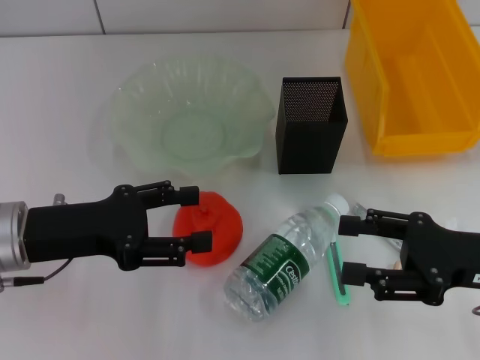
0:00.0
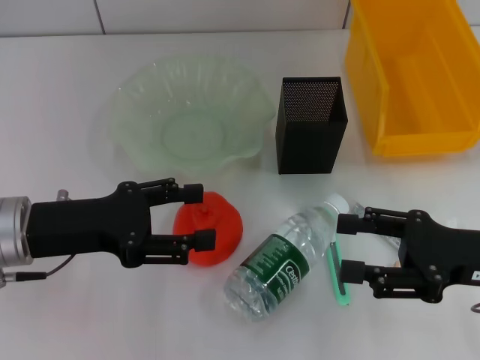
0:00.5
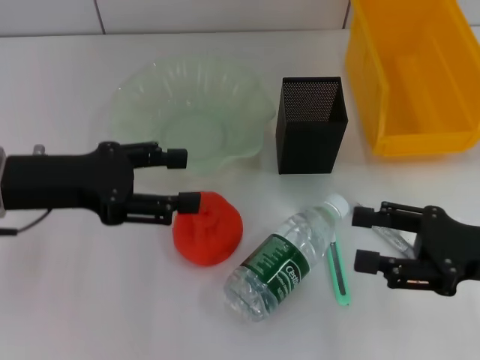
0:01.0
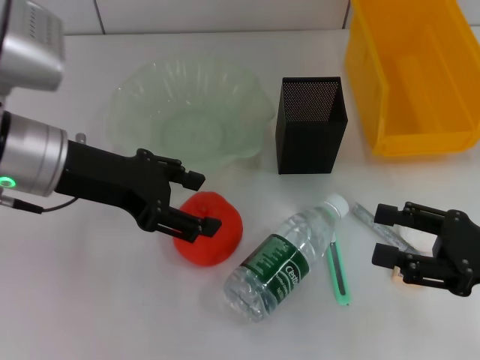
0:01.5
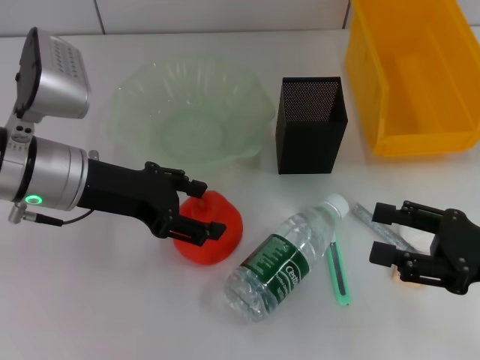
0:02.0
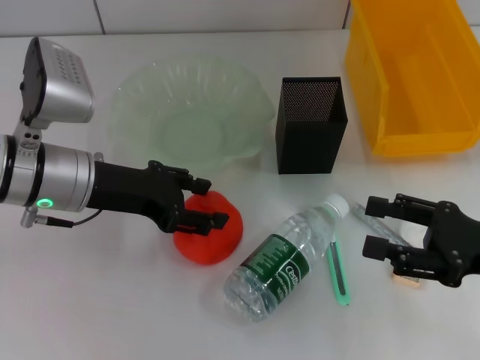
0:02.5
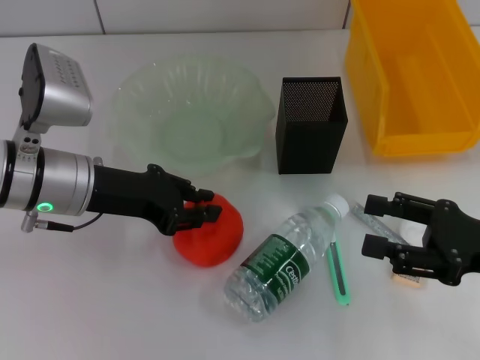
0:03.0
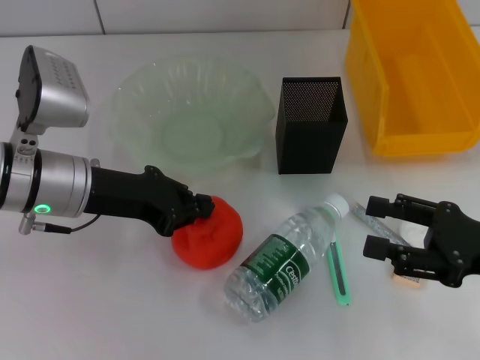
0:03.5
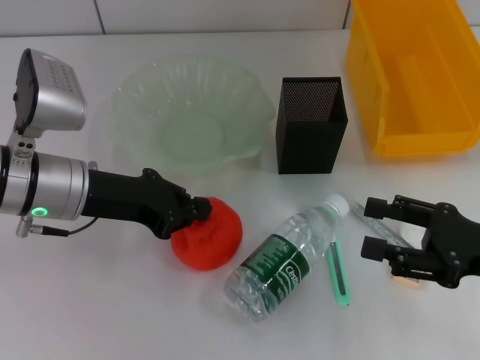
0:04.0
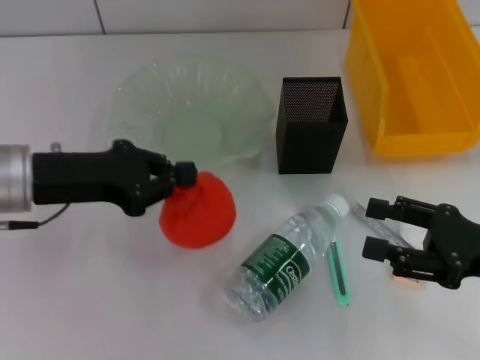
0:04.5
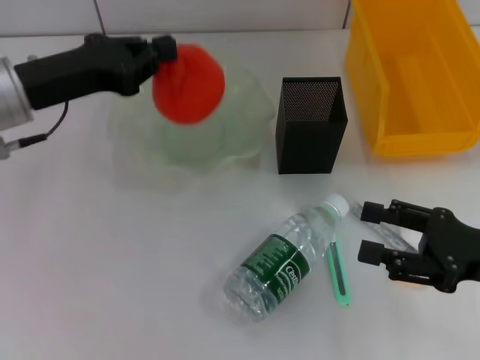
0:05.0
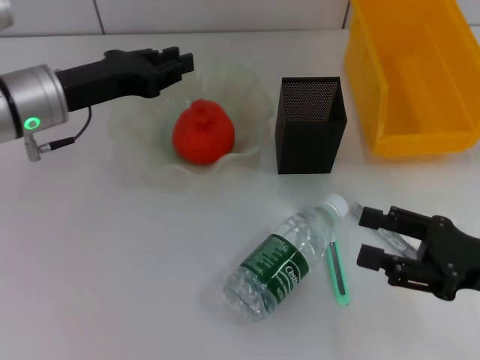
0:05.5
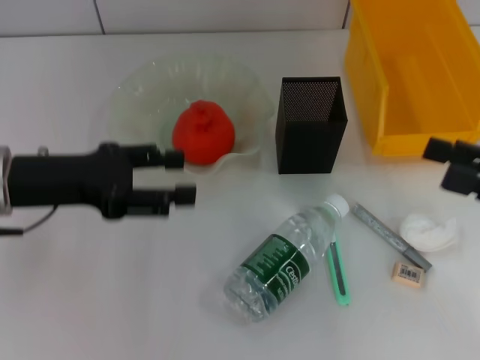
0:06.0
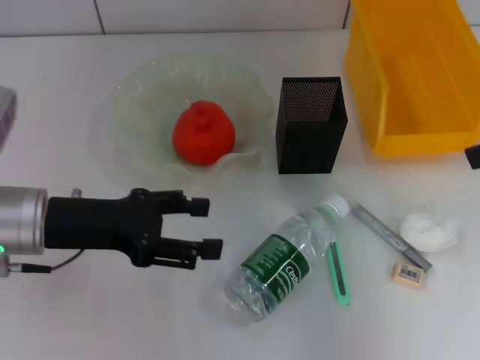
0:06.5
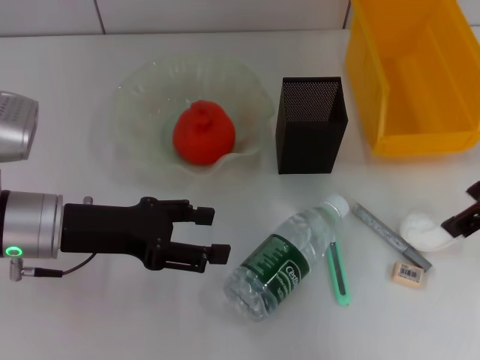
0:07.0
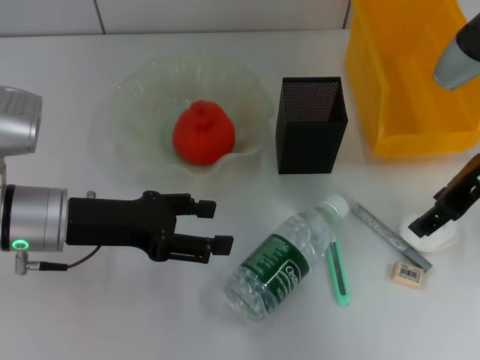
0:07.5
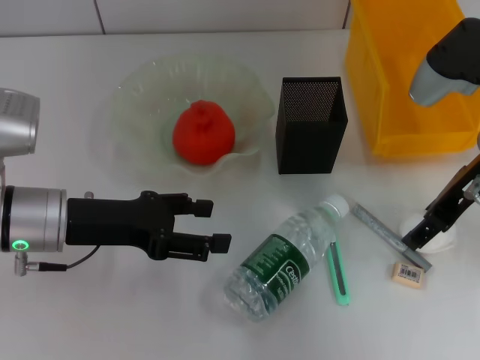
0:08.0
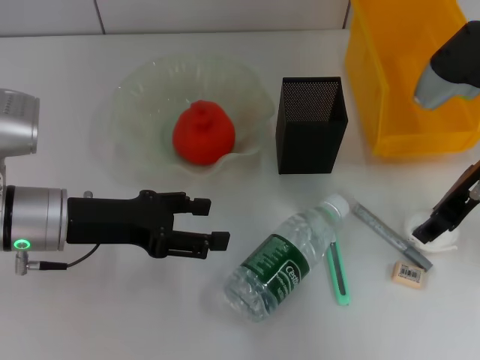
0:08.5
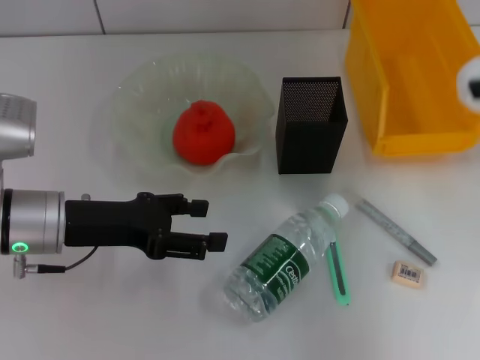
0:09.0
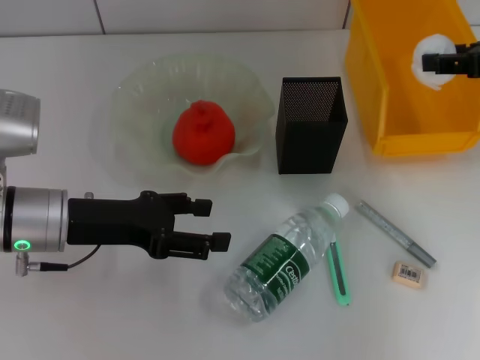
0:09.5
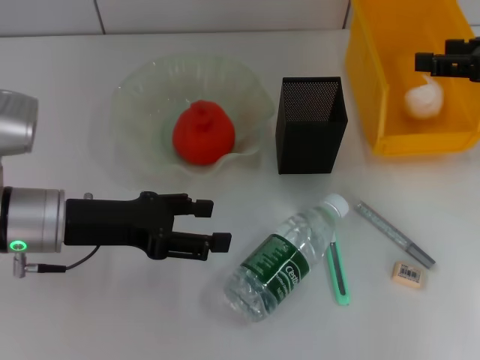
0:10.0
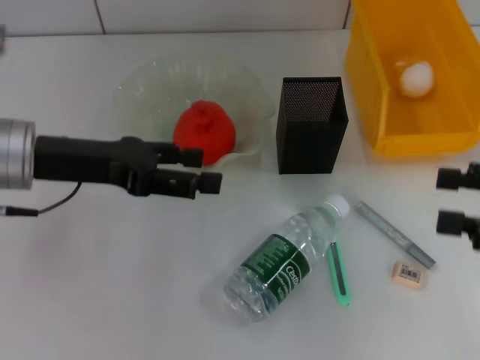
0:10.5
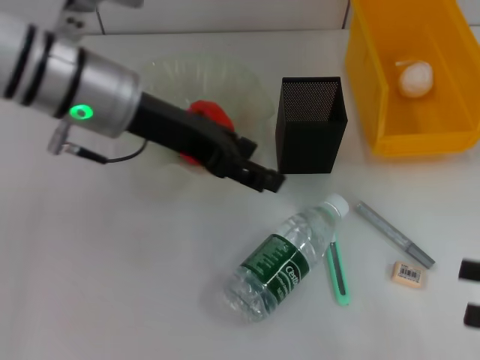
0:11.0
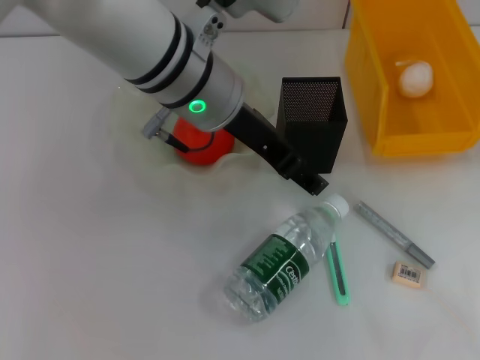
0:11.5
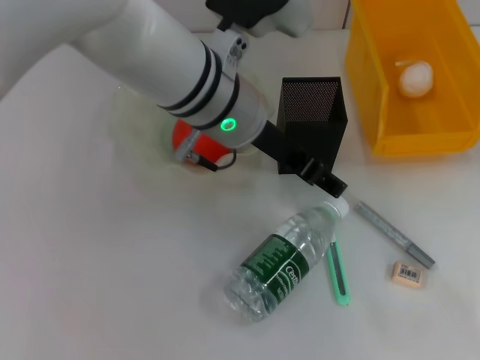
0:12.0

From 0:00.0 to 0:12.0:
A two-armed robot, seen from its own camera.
Step, from 0:00.0 to 0:04.0: Grab the orange with the left hand.
Step, from 0:04.5 to 0:05.5: Place the orange into the fruit bowl with the left hand.
Step, from 0:06.0 to 0:08.0: Grab the paper ball with the right hand.
Step, from 0:08.5 to 0:10.0: Place the paper ball into the trash can with the right hand.
From 0:00.0 to 0:02.0: The left gripper goes about 5 cm forward.
From 0:02.0 to 0:04.0: The left gripper closes its fingers.
From 0:04.0 to 0:06.0: The left gripper goes some 5 cm to the left, reaches some 5 cm forward, then returns, and opens, while the right gripper is displaced upward by some 5 cm.
From 0:06.0 to 0:08.0: The right gripper moves forward and to the left, about 15 cm, and travels upward and back again, roughly 15 cm each way, while the left gripper shifts by approximately 5 cm, and opens up.
From 0:08.0 to 0:10.0: The right gripper travels to the right by roughly 10 cm.
From 0:10.0 to 0:12.0: The right gripper is displaced backward, downward and to the right by approximately 20 cm. The left gripper travels to the right and upward by about 20 cm.

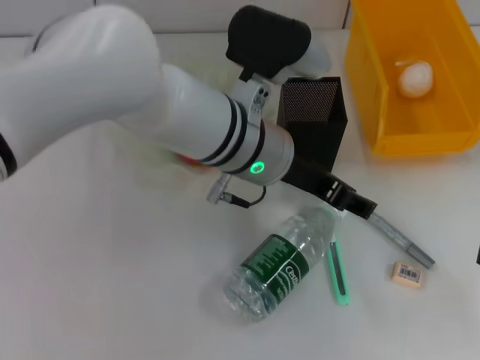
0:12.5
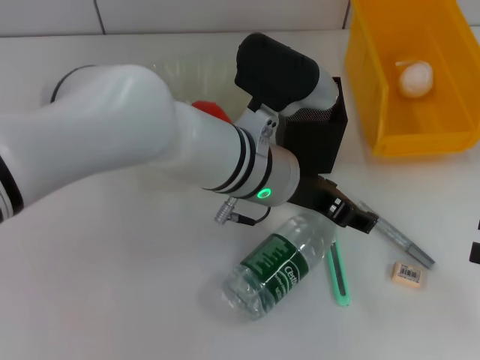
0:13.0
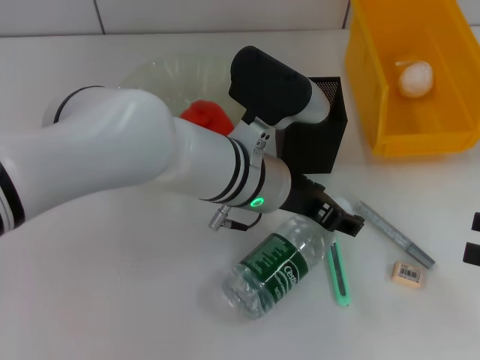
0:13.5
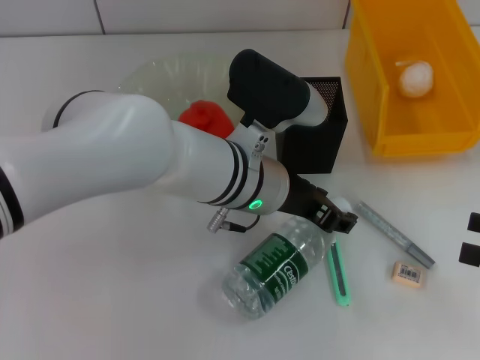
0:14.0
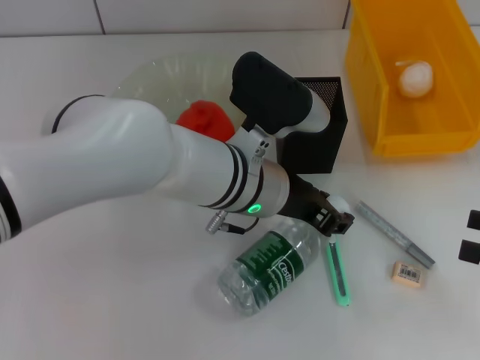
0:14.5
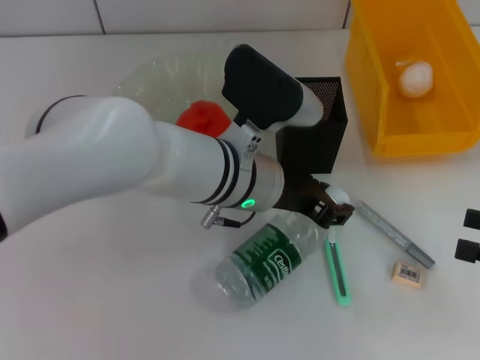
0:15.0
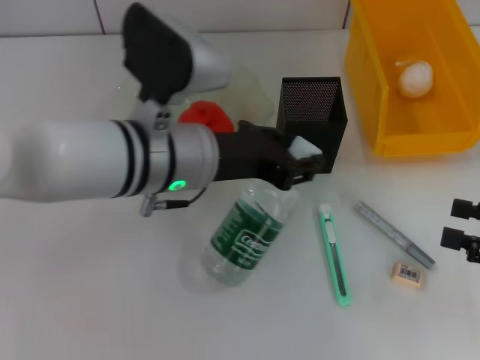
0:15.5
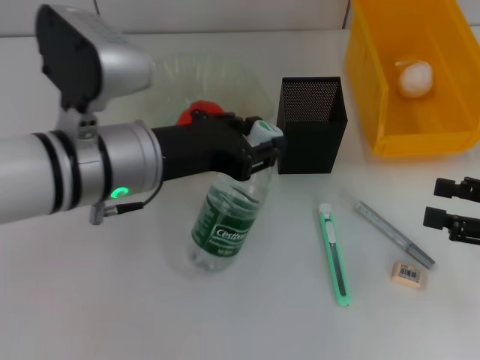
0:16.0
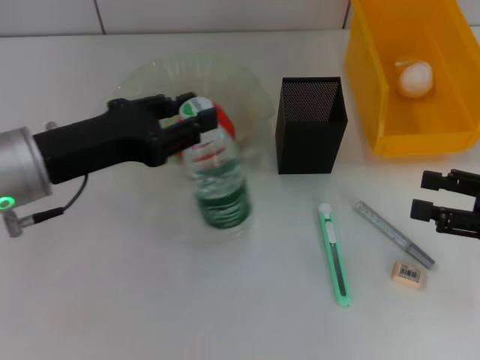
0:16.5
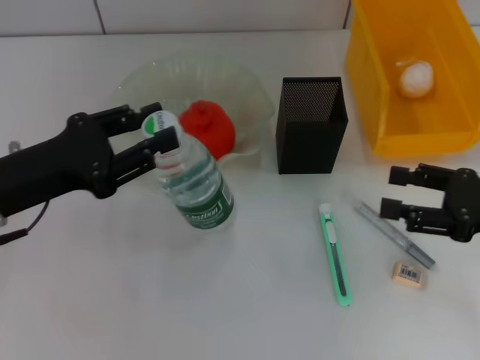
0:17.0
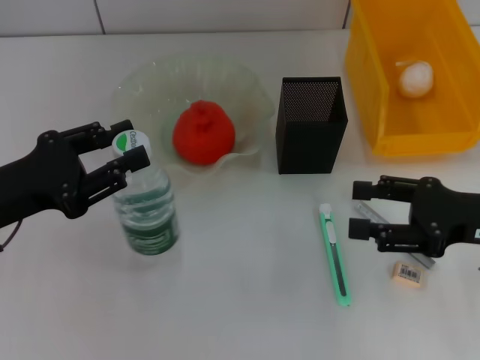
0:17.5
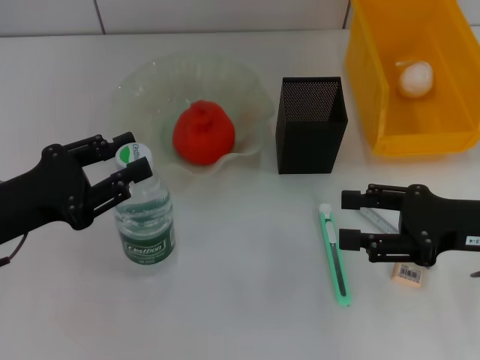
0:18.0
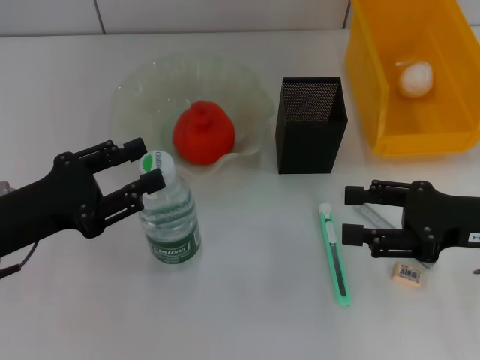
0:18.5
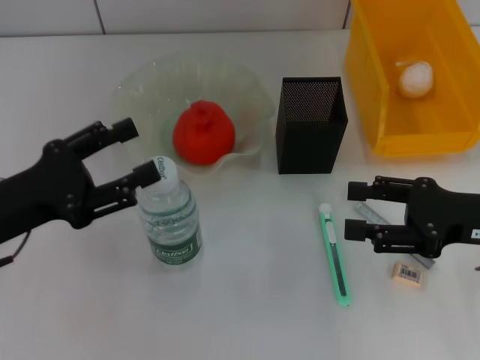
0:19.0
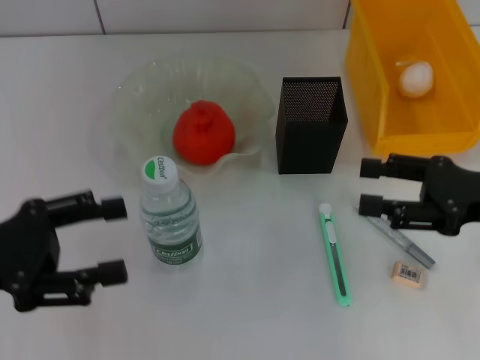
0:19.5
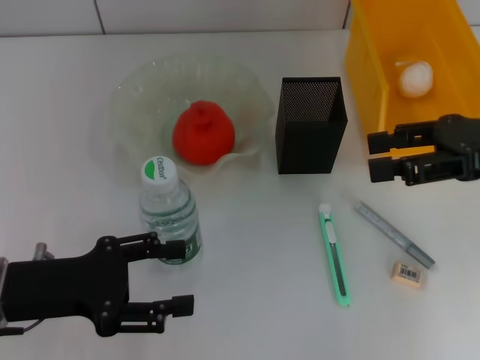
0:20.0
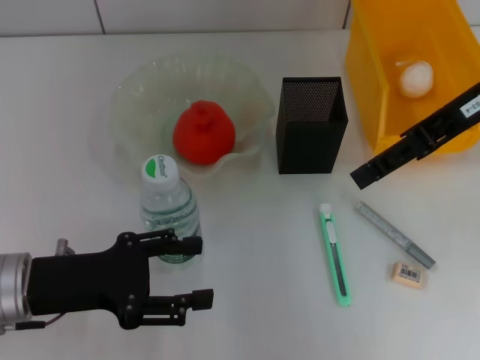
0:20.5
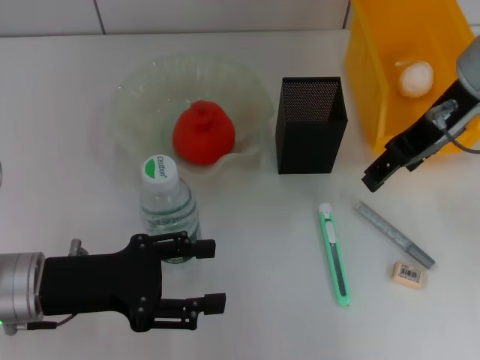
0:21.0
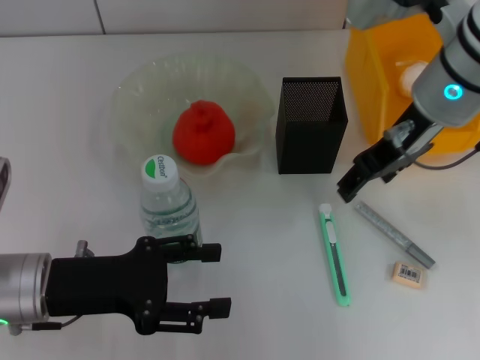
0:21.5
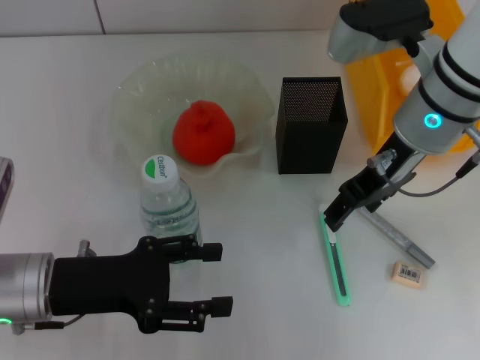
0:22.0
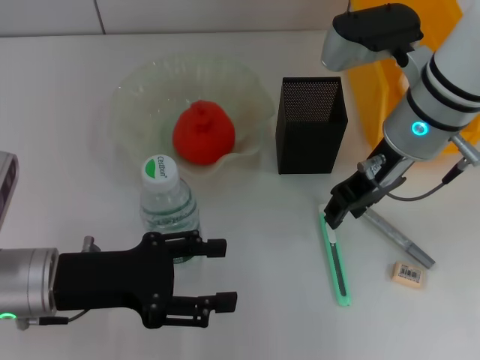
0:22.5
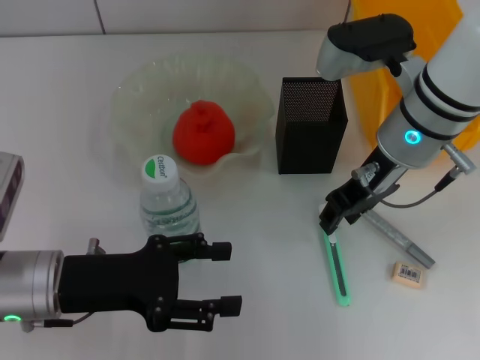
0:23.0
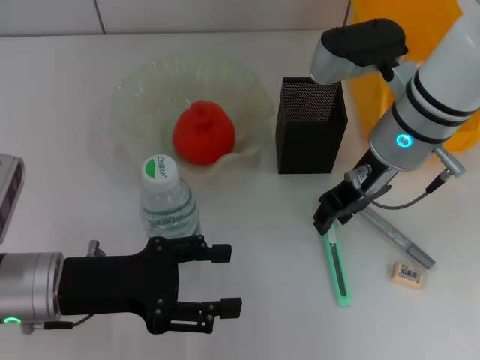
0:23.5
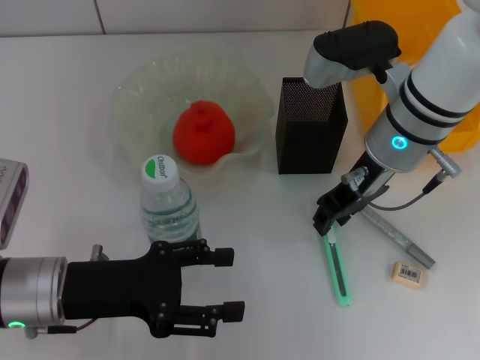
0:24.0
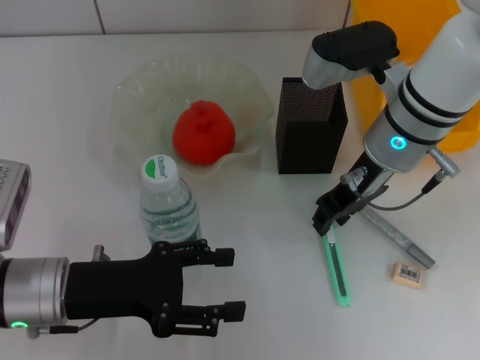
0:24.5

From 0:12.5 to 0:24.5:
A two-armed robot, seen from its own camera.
Step, from 0:12.5 to 0:14.5: Grab the water bottle with the left hand.
Step, from 0:15.0 to 0:18.5: Place the water bottle on the table with the left hand.
From 0:12.5 to 0:14.5: The left gripper closes up.
From 0:14.5 to 0:16.5: The right gripper changes place by some 5 cm. The left gripper shifts about 20 cm to the left.
From 0:16.5 to 0:18.5: The left gripper moves to the left and downward, about 10 cm. Meanwhile the right gripper goes roughly 5 cm to the left.
From 0:18.5 to 0:20.5: The right gripper goes about 20 cm upward, forward and to the left.
From 0:20.5 to 0:22.5: The right gripper heads downward and to the left, covering some 10 cm.
From 0:22.5 to 0:24.5: The grippers move only a little.

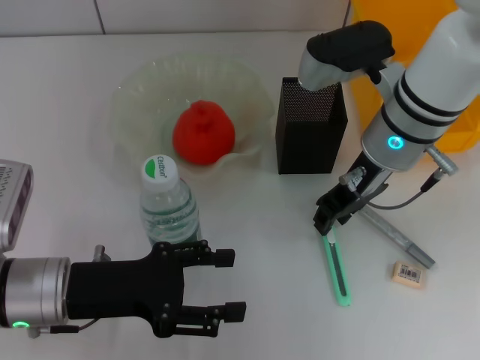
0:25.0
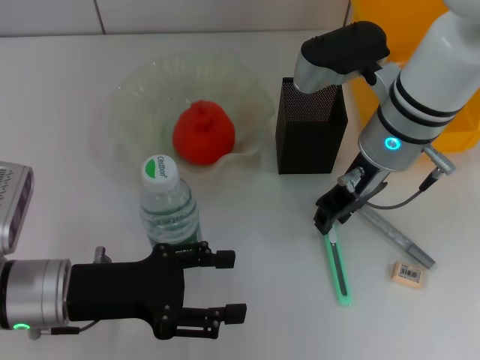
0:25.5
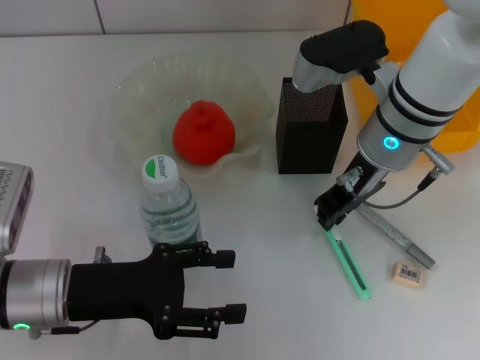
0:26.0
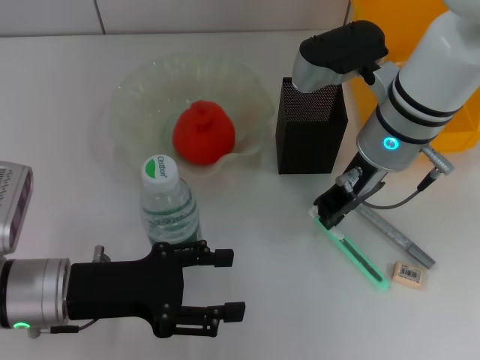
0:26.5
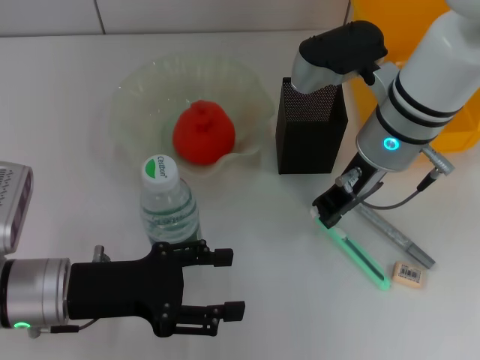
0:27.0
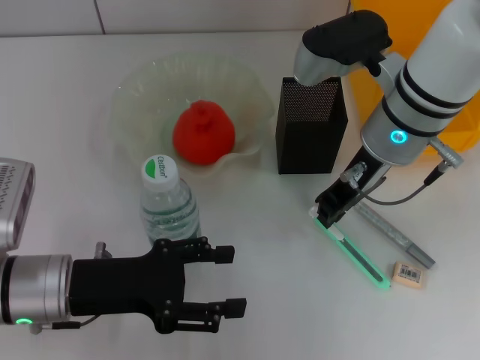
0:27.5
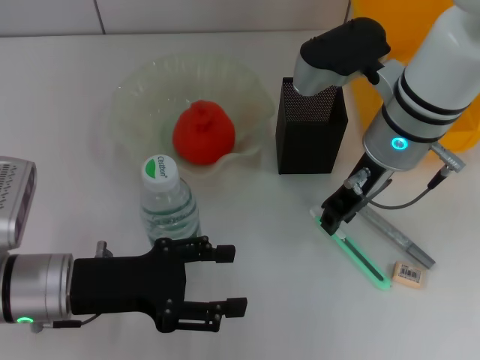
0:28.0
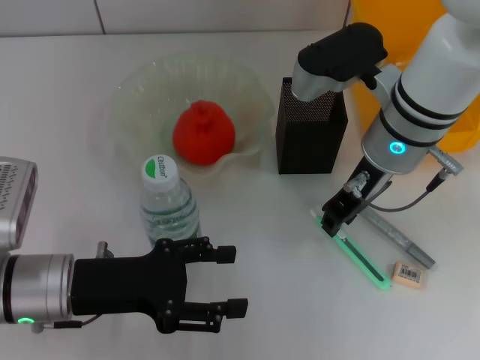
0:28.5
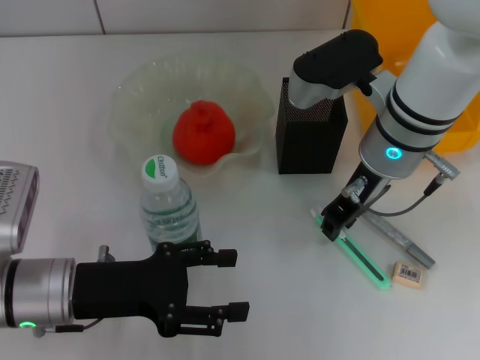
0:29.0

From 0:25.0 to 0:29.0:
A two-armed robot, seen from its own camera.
From 0:25.0 to 0:27.0: The right gripper closes.
From 0:27.0 to 0:29.0: There are only small adjustments of the grippers.
